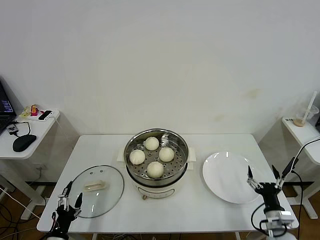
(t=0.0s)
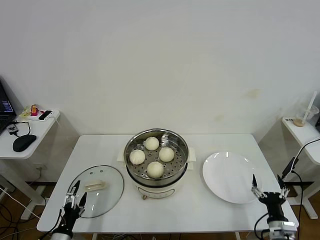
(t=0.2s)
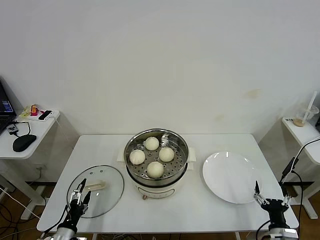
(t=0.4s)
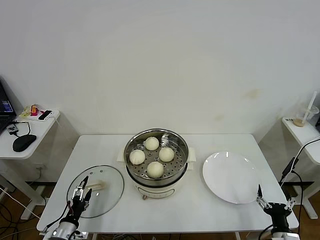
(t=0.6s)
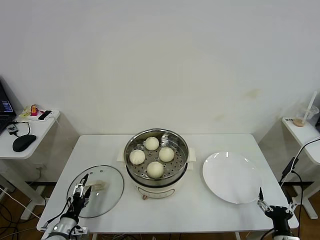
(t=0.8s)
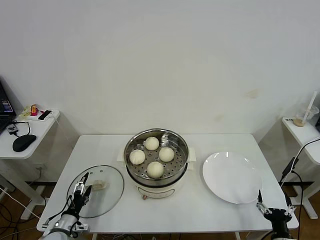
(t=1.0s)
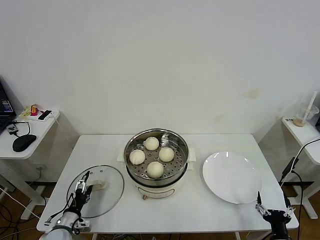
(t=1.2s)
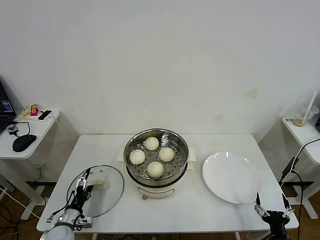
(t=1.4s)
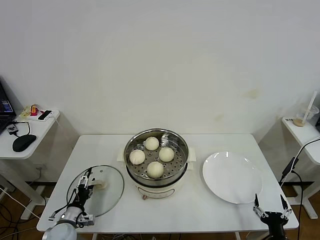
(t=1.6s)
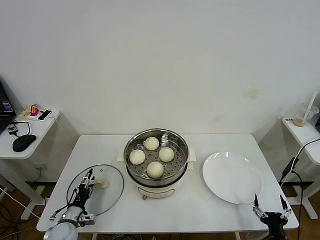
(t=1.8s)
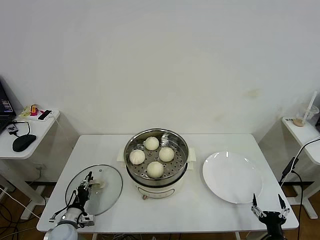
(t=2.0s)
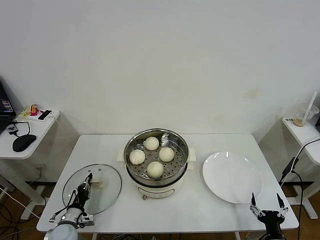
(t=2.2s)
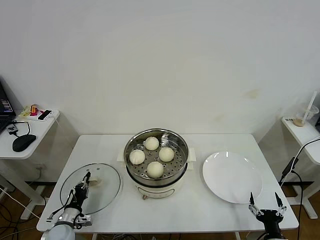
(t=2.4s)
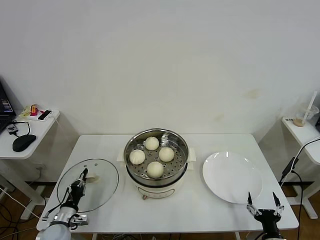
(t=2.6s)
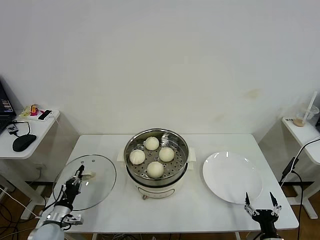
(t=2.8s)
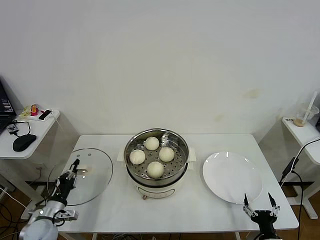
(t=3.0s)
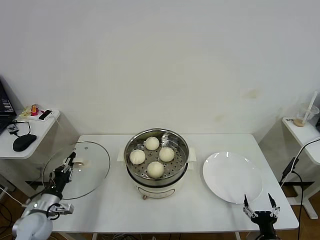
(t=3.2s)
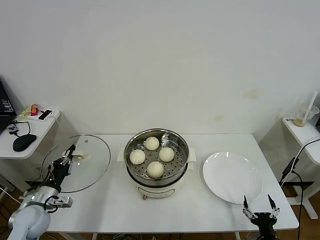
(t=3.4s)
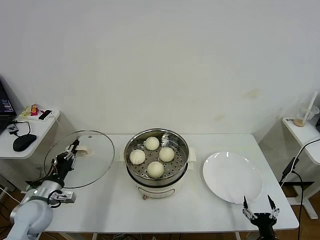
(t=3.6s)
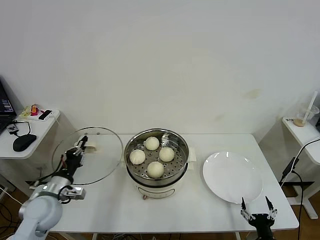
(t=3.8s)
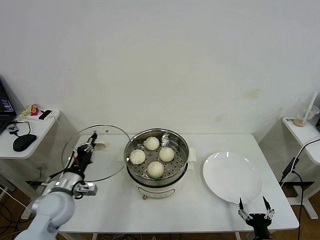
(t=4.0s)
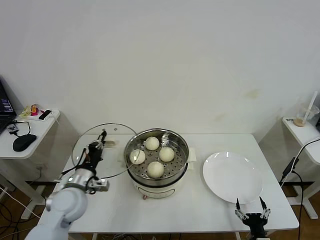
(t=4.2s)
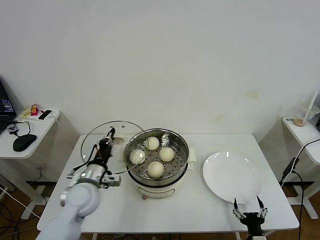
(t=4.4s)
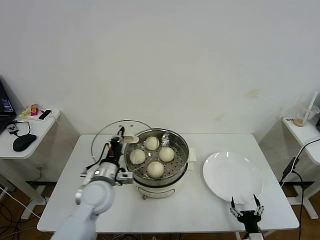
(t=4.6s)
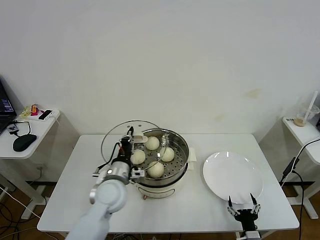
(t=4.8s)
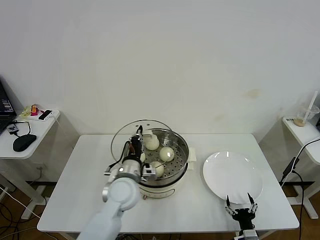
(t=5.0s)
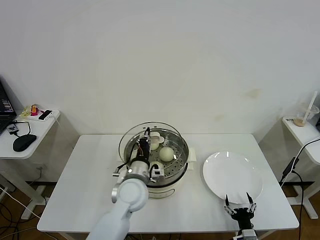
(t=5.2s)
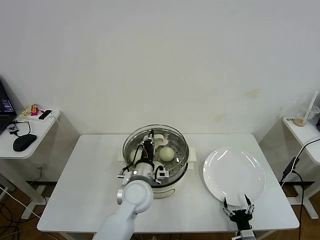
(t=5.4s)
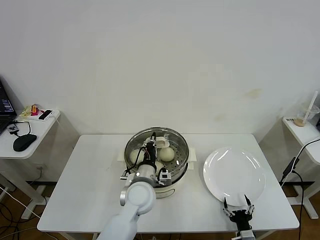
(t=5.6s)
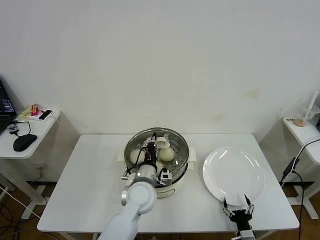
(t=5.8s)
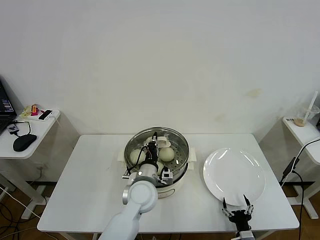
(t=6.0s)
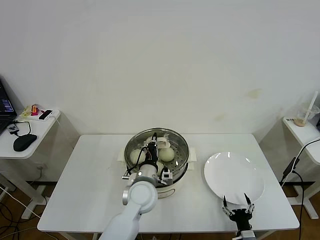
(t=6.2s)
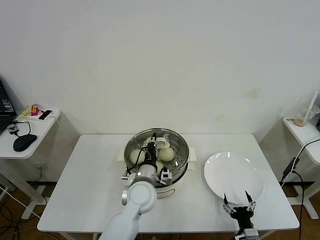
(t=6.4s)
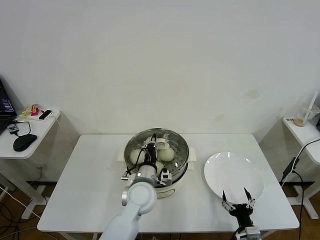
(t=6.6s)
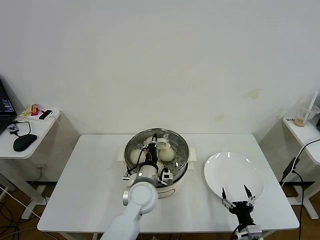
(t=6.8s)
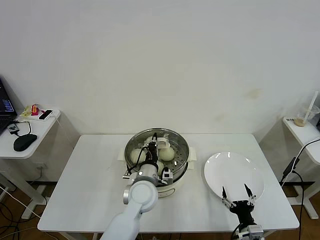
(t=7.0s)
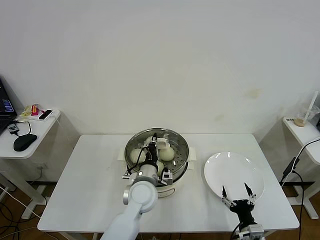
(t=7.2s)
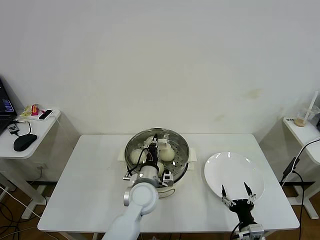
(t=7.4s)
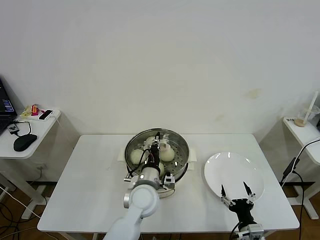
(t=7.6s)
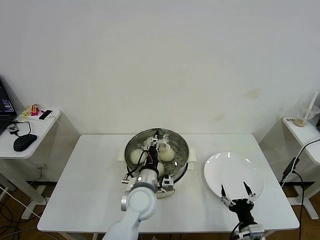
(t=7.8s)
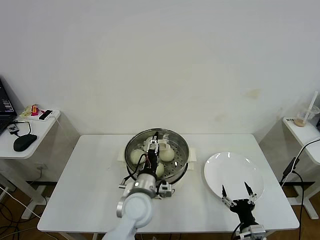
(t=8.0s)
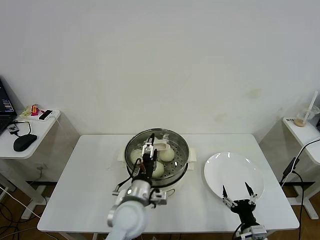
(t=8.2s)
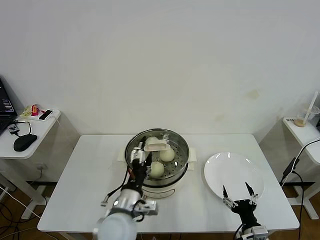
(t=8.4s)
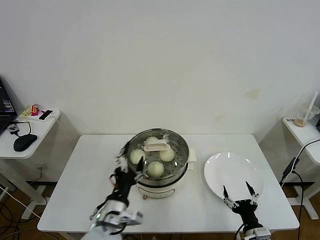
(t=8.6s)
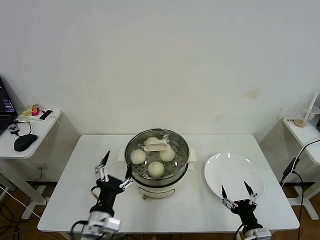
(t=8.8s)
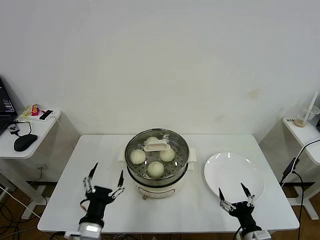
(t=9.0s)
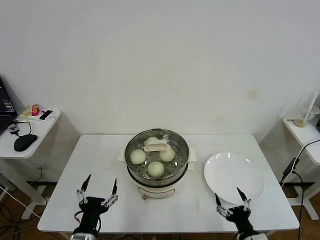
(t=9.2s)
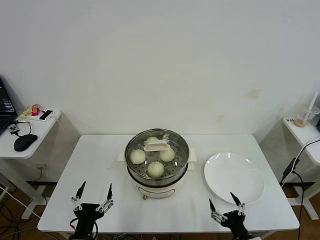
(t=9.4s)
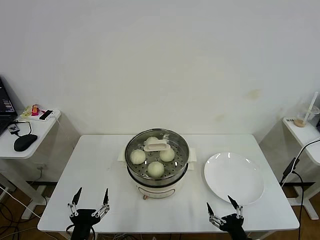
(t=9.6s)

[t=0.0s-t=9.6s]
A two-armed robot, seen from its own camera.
Task of the whole recording: take steamed baozi put them in steamer then cover it.
Step, t=0.0s to t=2.2s: Grasp the pot lid with left gripper.
Step, t=2.6s to t=8.2s: Place the pot lid on the steamer with left gripper.
t=0.0s to t=1.6s: The right gripper moves backward, approximately 10 cm. Meanwhile the left gripper travels forward and downward by about 15 cm.
t=1.6s to t=3.2s: The left gripper moves upward, about 10 cm, and closes its fingers.
t=3.2s to t=4.8s: The right gripper moves about 5 cm, while the left gripper goes some 25 cm to the right and upward.
t=4.8s to t=6.4s: The left gripper moves to the right, some 10 cm.
t=6.4s to t=8.0s: The right gripper moves upward, some 5 cm, while the left gripper opens.
t=8.0s to t=9.6s: The left gripper heads backward and to the left, covering about 25 cm, while the right gripper shifts by approximately 5 cm.
